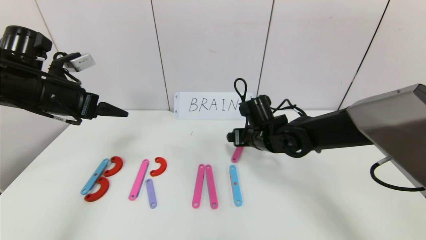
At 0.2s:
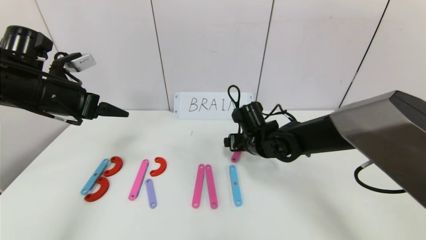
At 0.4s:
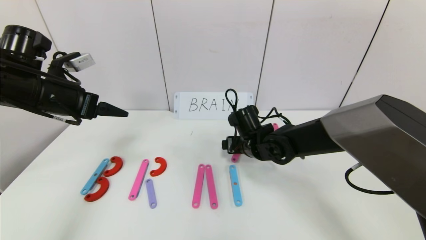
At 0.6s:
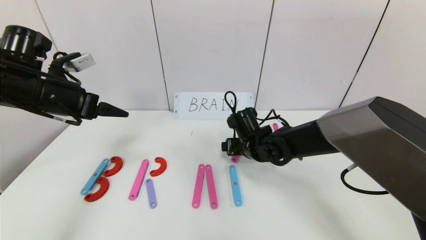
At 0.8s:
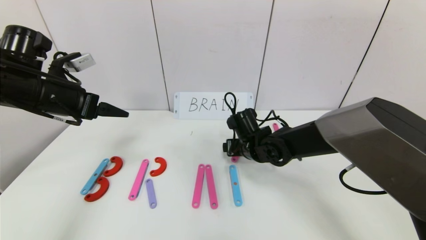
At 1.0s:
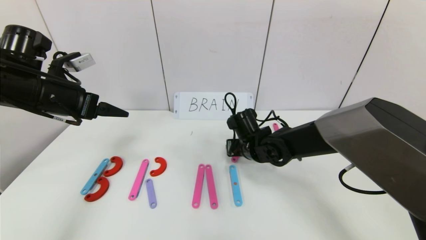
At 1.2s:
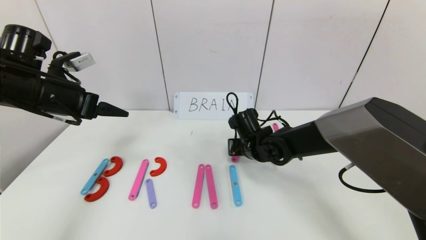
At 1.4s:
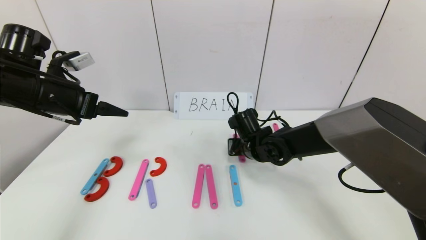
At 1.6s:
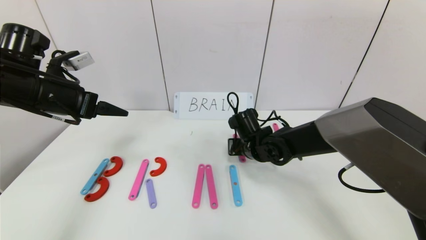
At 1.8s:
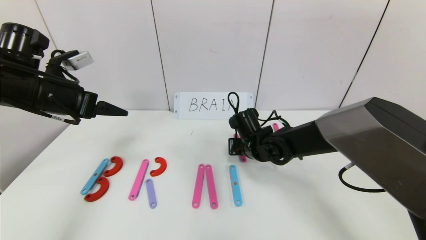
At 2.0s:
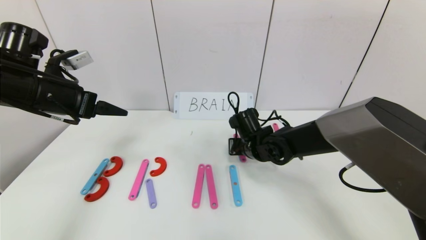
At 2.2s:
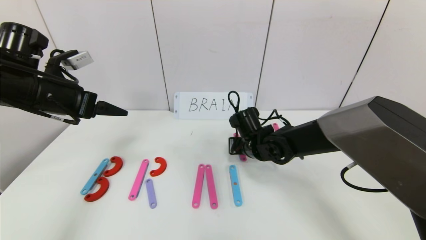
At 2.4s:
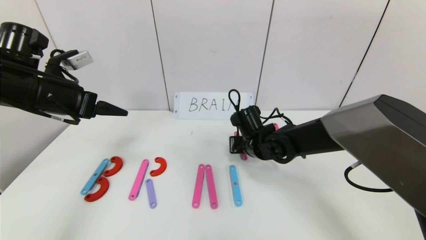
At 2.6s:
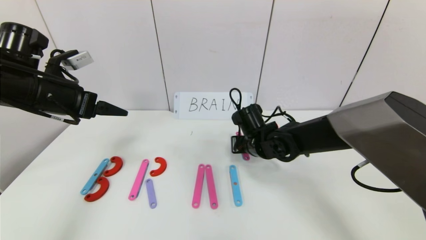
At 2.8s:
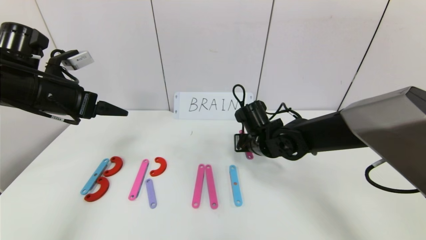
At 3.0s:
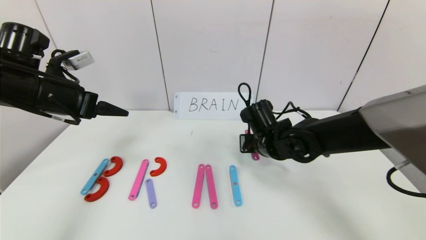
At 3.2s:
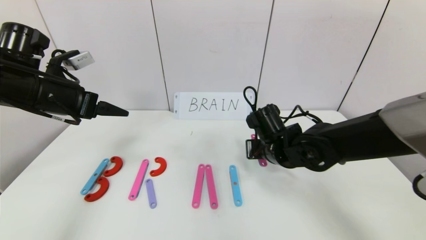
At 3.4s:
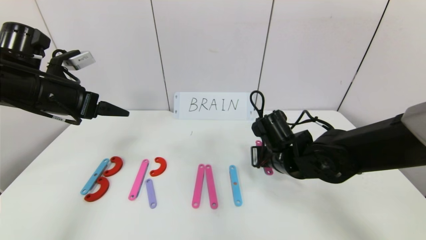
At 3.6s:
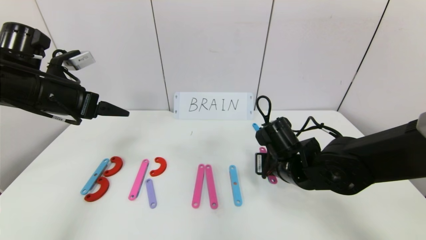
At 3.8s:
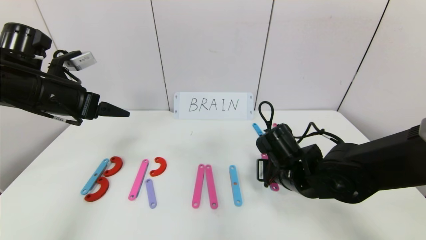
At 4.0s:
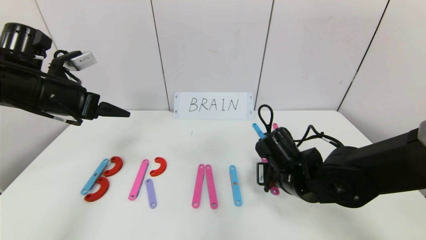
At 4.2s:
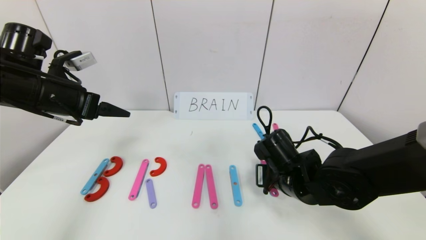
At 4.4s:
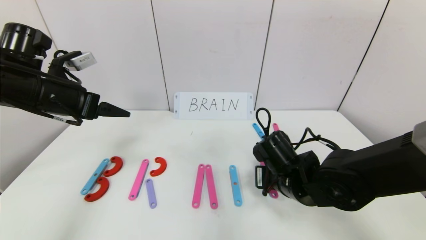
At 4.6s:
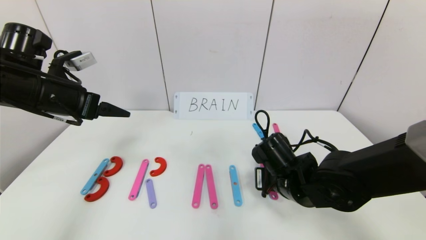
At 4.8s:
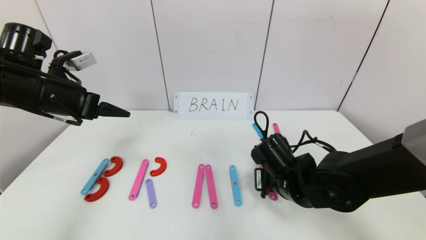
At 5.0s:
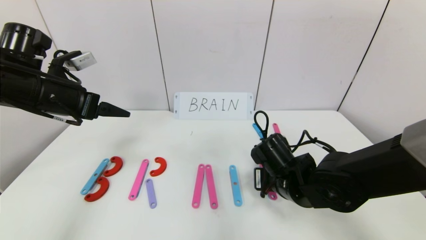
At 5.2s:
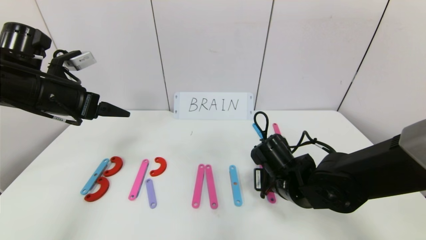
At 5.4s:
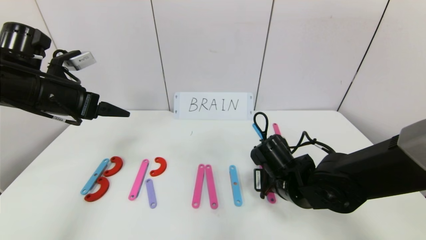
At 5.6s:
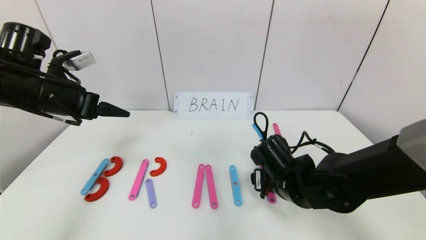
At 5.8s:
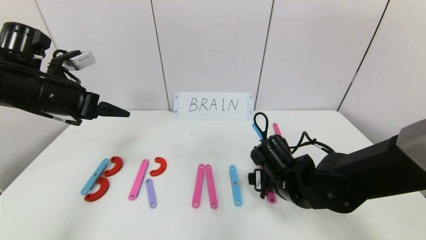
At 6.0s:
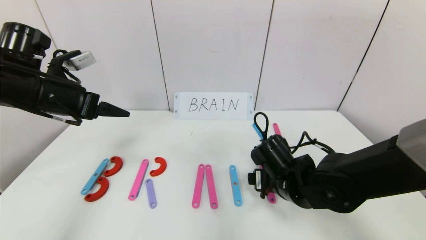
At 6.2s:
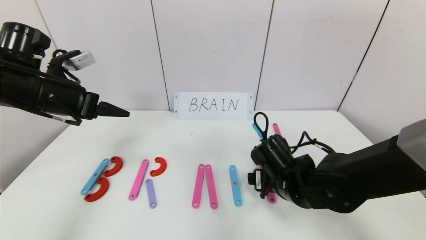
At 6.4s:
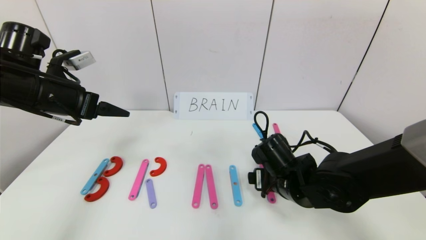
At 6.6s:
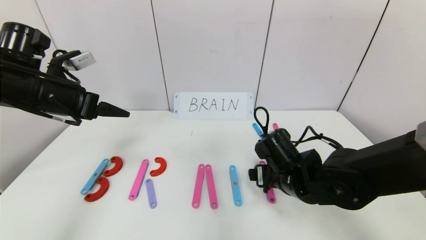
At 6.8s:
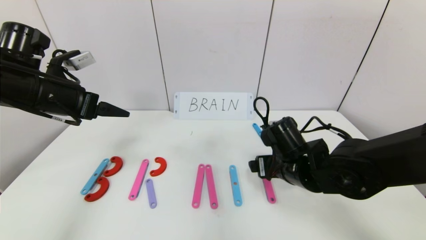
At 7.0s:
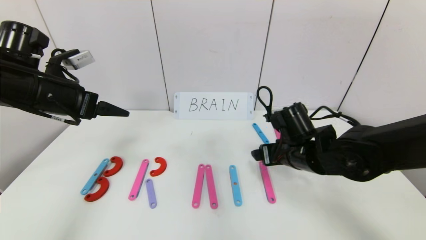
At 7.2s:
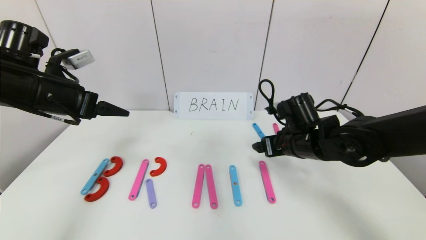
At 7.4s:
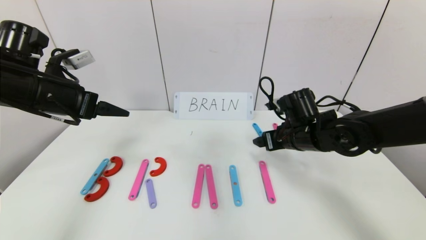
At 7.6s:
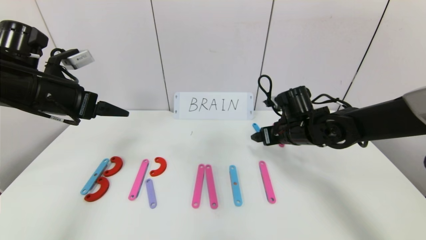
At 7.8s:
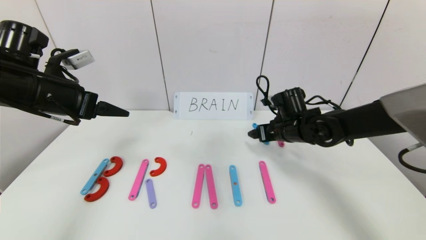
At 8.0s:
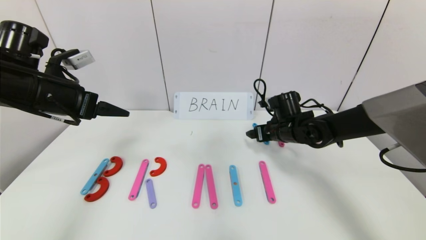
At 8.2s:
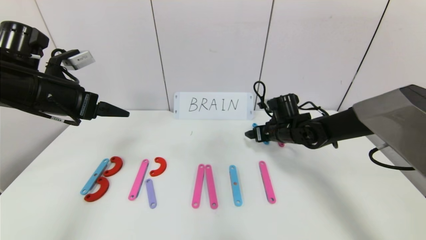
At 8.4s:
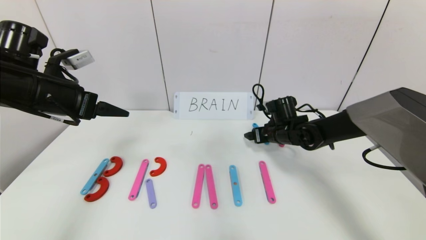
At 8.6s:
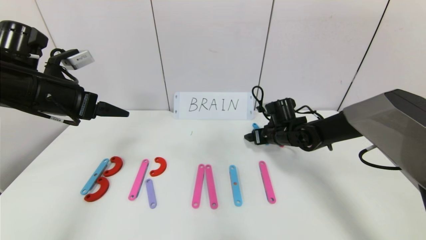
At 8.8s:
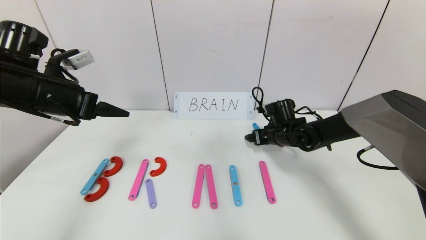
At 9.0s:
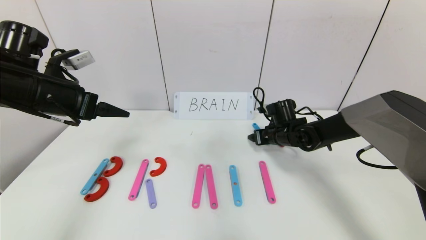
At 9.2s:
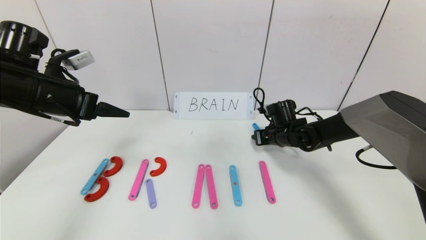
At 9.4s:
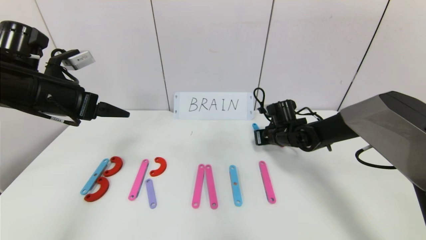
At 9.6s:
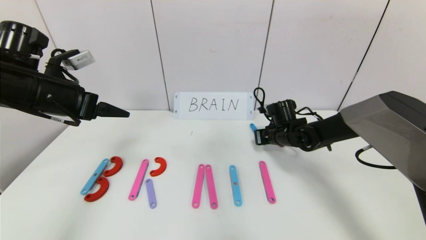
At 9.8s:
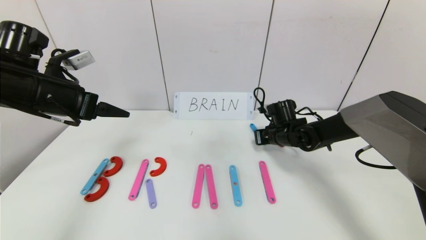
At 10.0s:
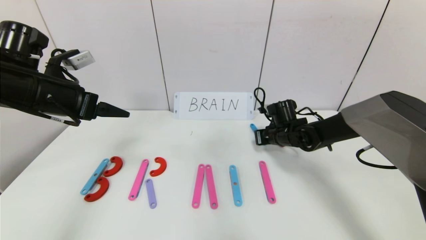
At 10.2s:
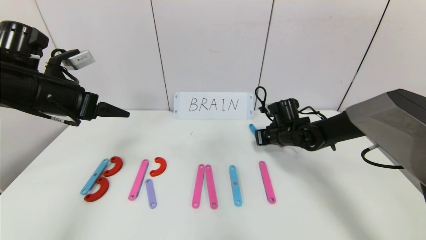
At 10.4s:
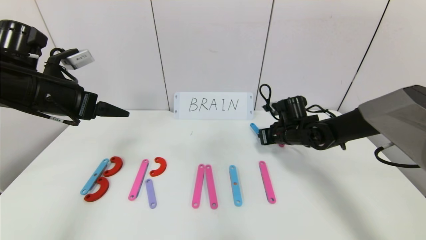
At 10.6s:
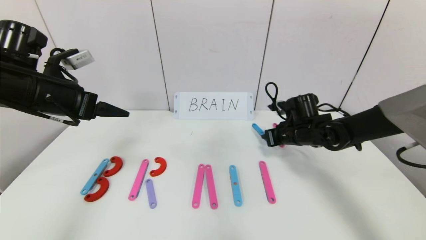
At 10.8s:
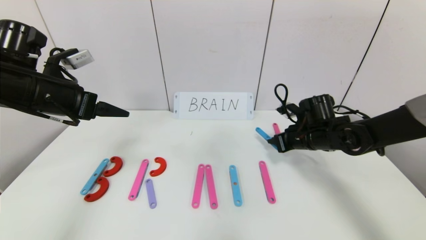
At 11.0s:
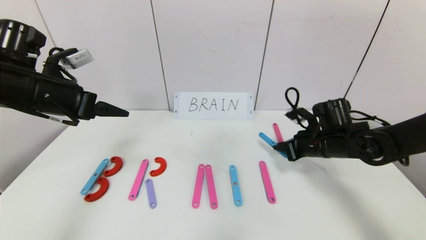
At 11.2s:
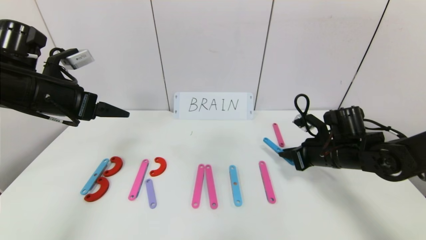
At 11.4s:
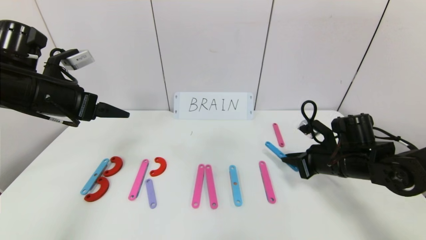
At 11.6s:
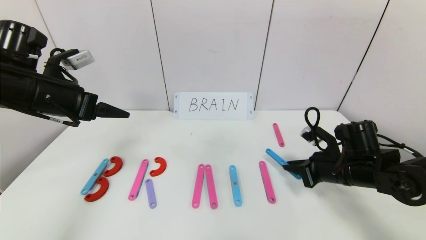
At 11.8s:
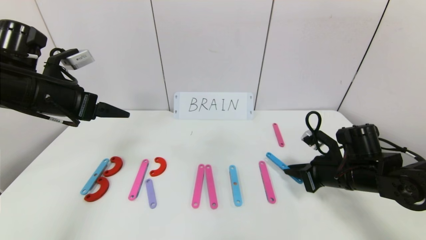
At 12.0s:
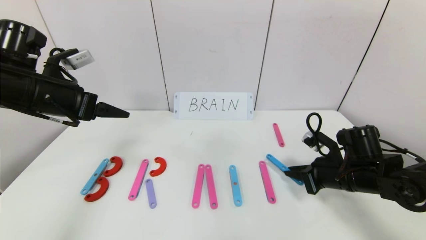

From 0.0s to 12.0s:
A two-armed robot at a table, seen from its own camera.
Task of the whole recording: rearrange the word baai as brain.
From 0.0s to 1.6s: The right gripper closes.
From 1.6s to 3.0s: The right gripper ends up about 5 cm from where it was.
From 3.0s to 4.4s: The right gripper moves backward, roughly 10 cm.
From 4.4s to 6.0s: The right gripper opens up.
From 6.0s to 7.6s: The right gripper travels forward and upward by approximately 10 cm.
From 7.6s to 9.0s: The right gripper shifts some 10 cm forward and downward.
From 9.0s to 10.4s: The right gripper closes up.
From 10.4s to 12.0s: The right gripper travels backward and to the right by approximately 15 cm.

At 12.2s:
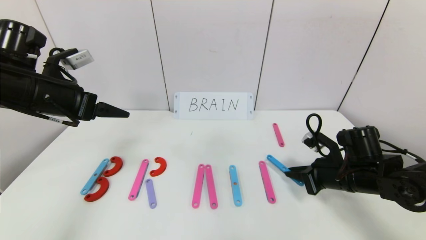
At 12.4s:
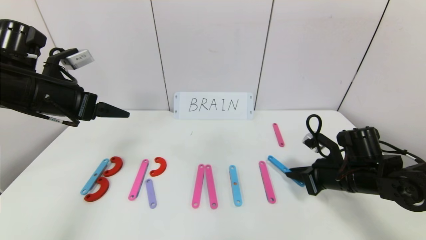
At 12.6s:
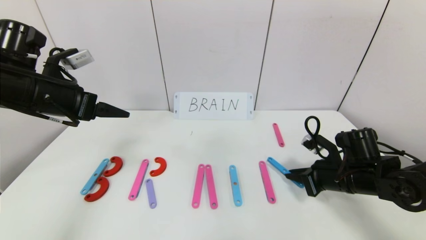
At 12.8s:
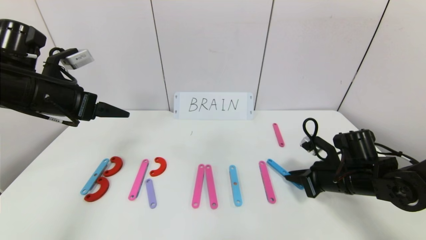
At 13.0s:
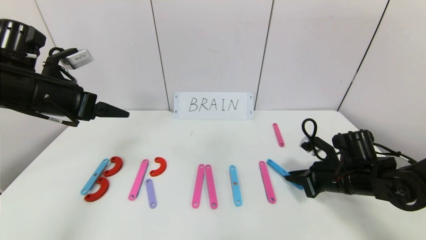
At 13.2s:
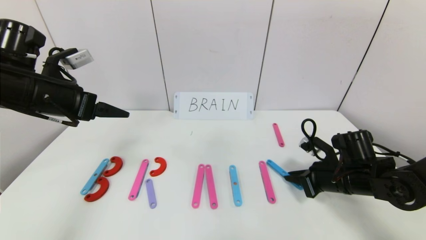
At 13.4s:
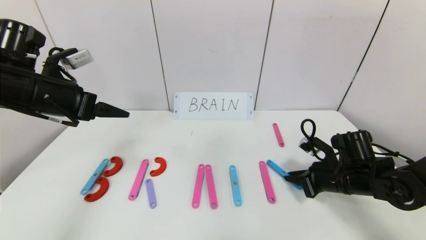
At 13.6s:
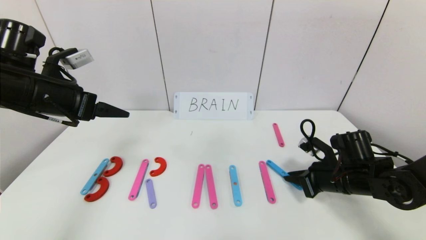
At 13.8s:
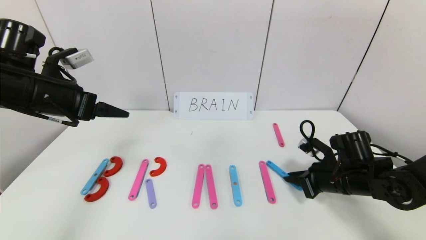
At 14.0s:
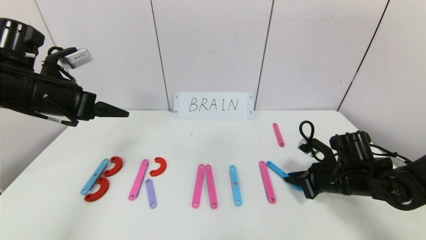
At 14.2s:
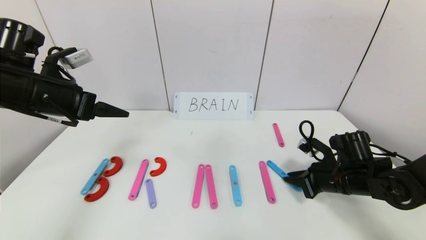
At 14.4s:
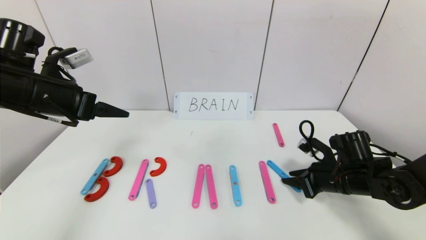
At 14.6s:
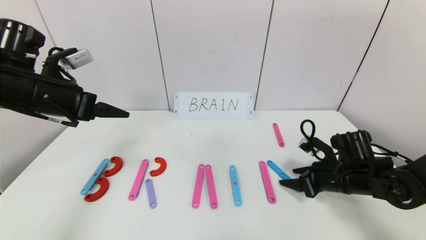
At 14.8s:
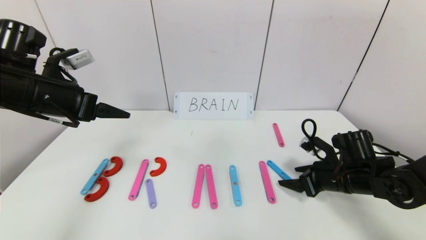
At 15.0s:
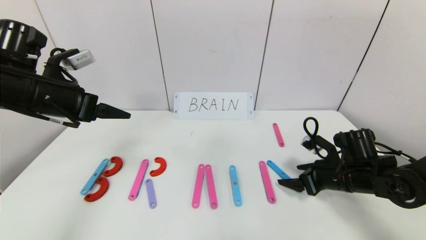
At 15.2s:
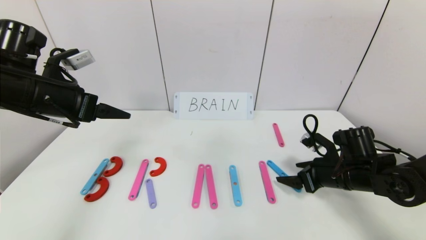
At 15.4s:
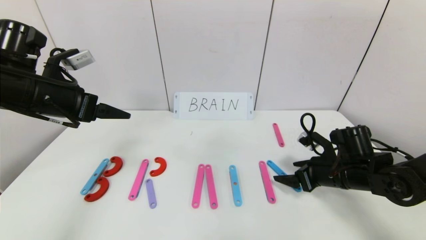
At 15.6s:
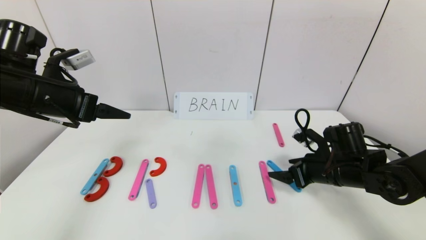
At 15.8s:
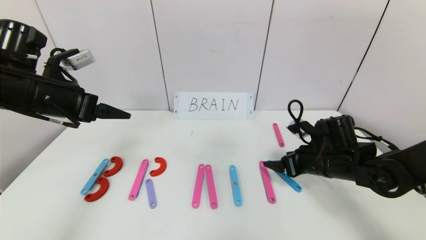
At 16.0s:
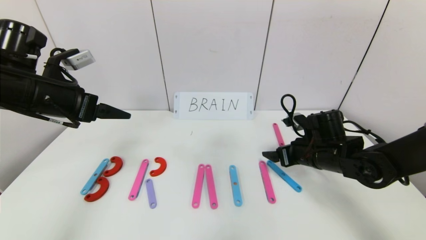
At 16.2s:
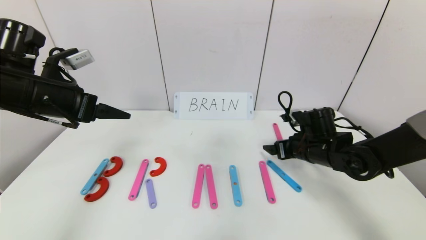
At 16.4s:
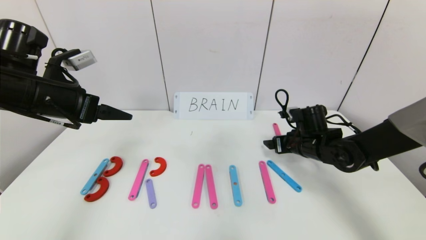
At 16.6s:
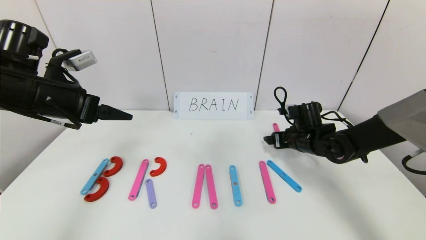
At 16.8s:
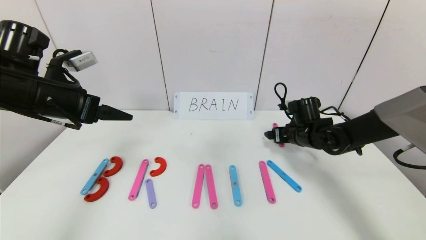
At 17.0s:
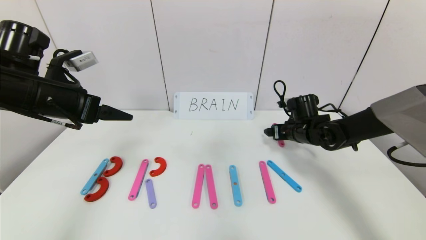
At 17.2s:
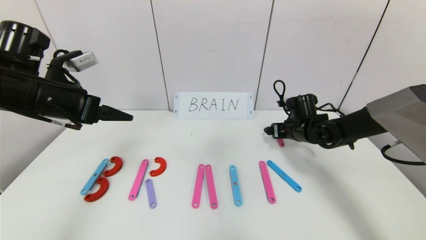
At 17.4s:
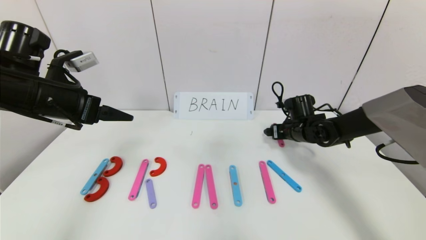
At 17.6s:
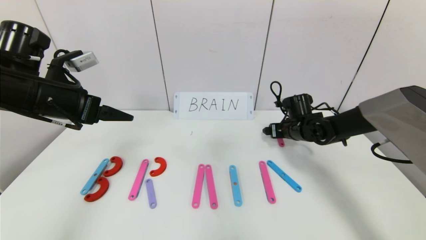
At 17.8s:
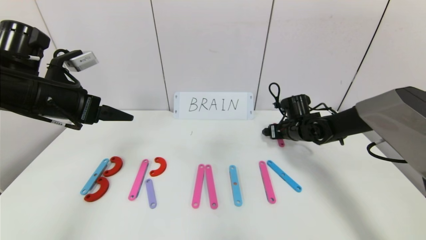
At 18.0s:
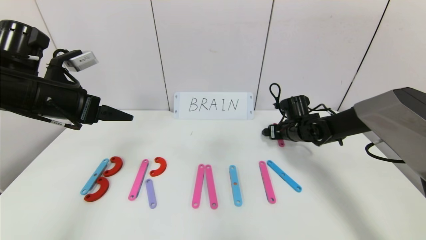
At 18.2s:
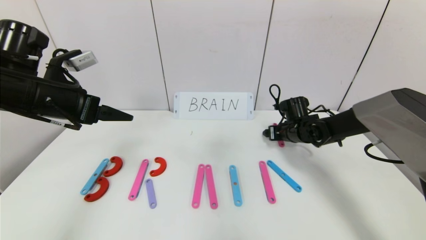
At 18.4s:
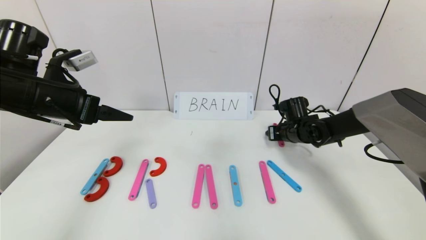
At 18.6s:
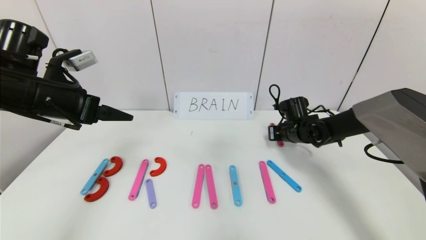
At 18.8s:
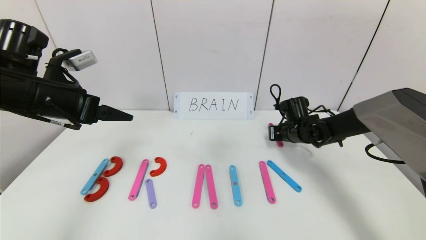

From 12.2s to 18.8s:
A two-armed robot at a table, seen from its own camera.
Task of the whole recording: rearrange the word baai as brain.
From 12.2s to 13.8s: The grippers move only a little.
From 13.8s to 15.4s: The right gripper opens.
From 15.4s to 17.2s: The right gripper goes roughly 15 cm forward.
From 17.2s to 18.8s: The right gripper closes its fingers.
